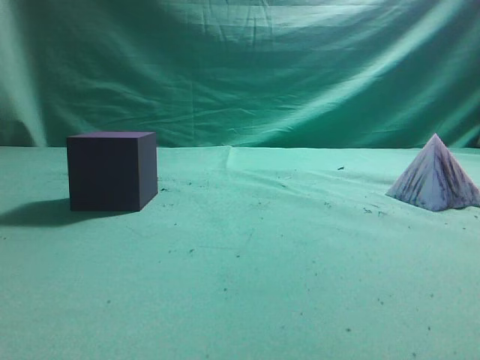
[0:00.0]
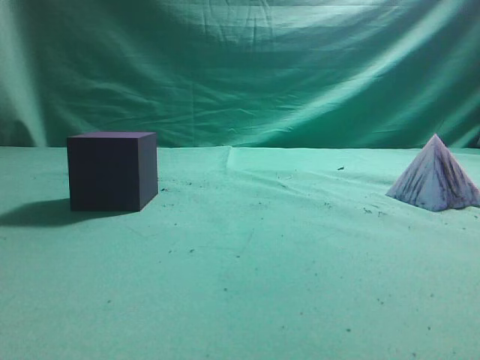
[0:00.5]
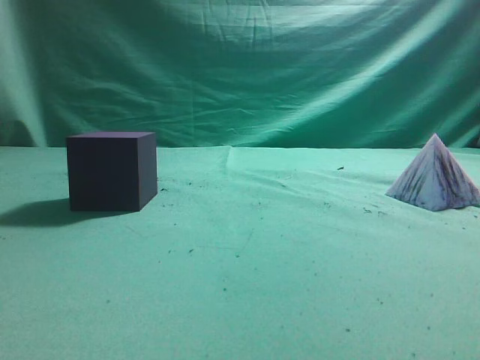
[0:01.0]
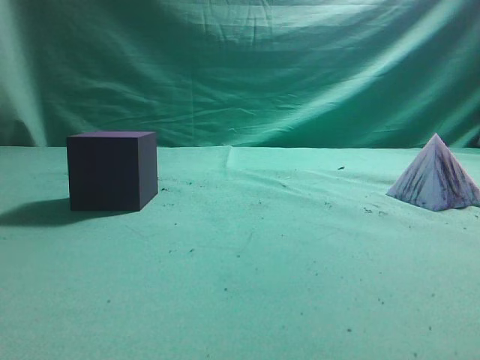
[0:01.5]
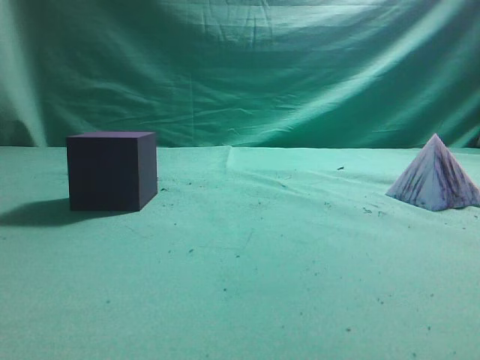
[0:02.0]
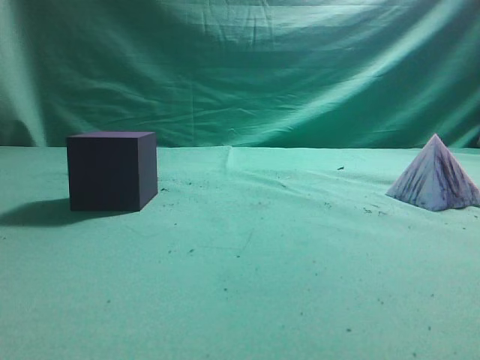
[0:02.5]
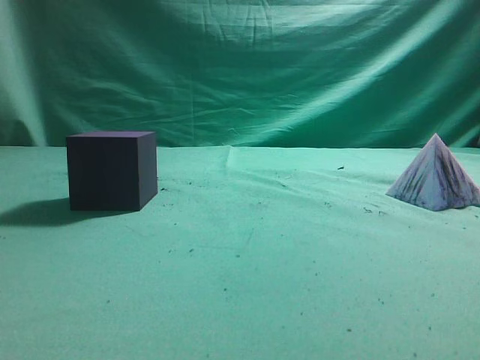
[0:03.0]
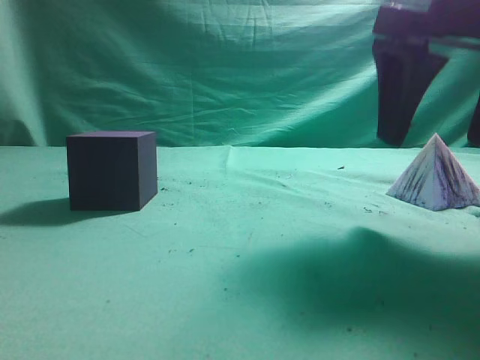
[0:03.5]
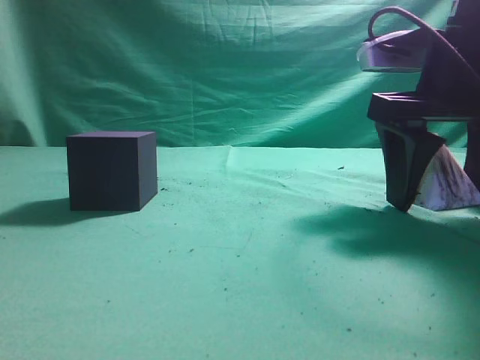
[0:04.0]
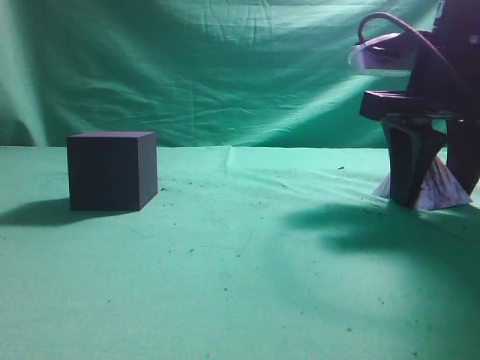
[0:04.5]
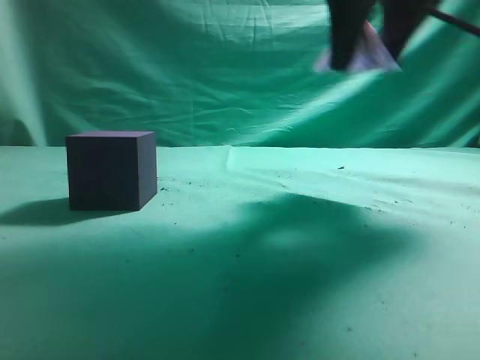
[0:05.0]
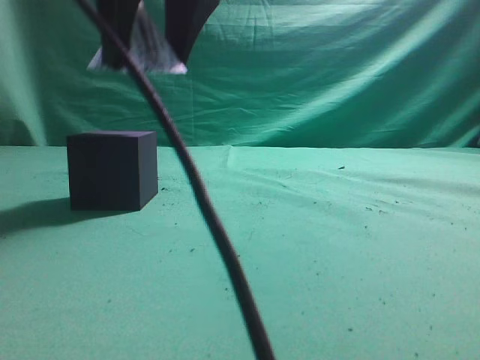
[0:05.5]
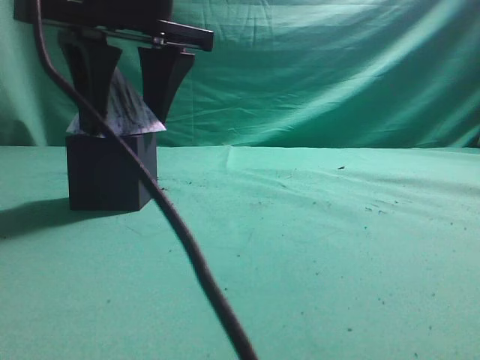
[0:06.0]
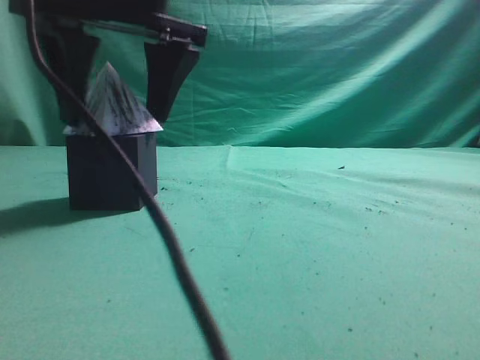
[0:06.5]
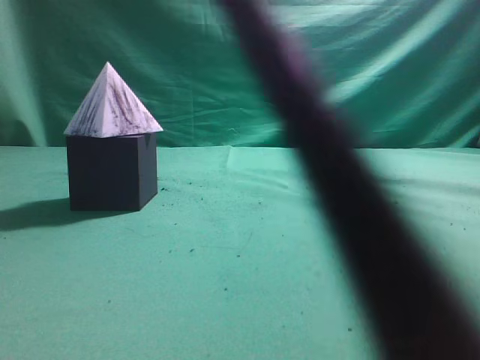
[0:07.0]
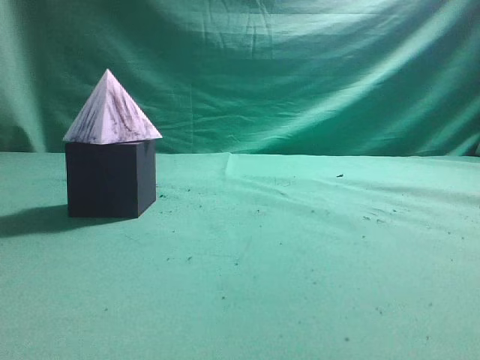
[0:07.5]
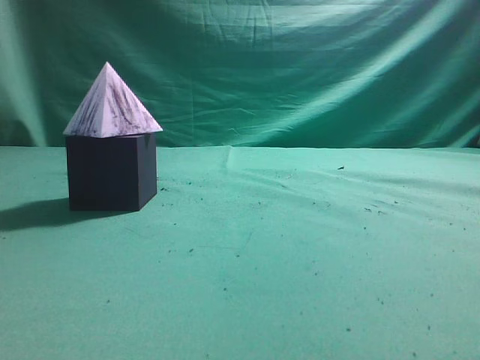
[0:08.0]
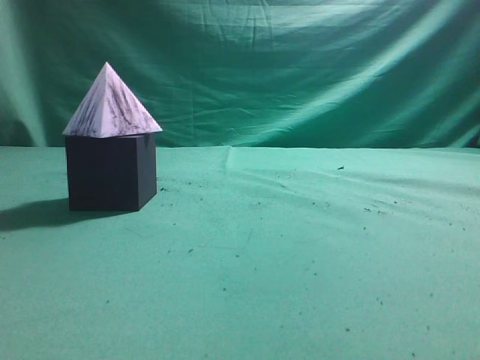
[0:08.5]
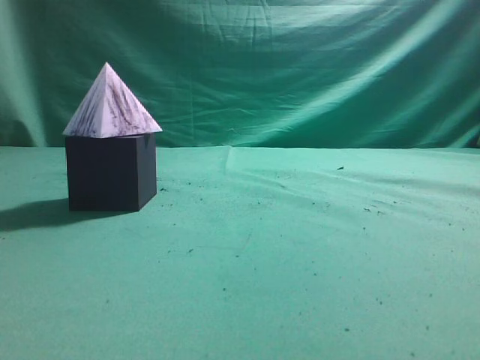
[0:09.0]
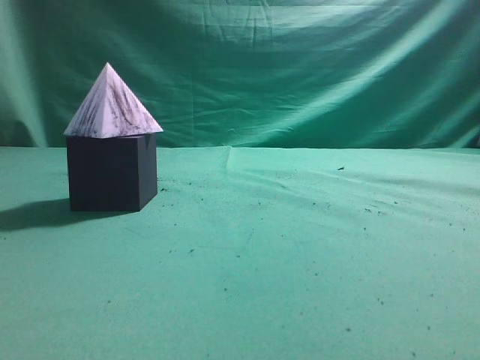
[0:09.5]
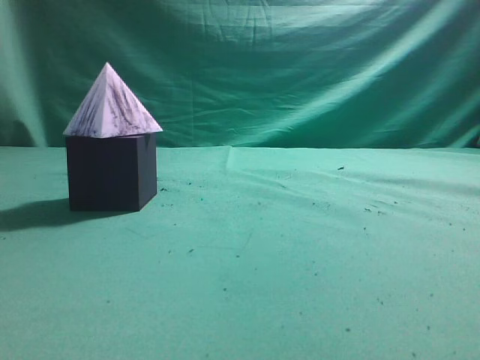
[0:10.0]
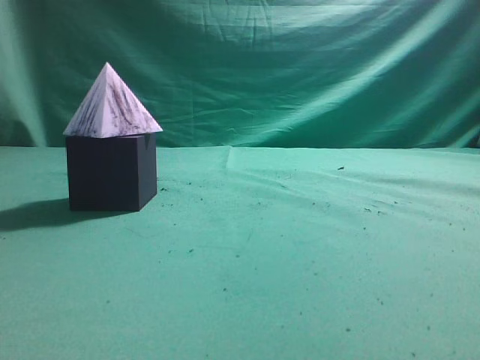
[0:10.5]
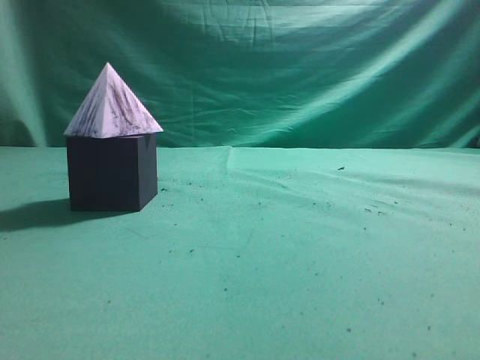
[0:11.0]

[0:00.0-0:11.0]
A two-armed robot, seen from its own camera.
Task of the whole recording: pick up the square pyramid from the table and place it on the cube block.
Step, 0:00.0 to 0:04.5: Grasp the triangular block.
Step, 0:05.0 to 0:06.5: Place the block onto the cube-shaped block.
0:02.0 to 0:03.5: The right gripper shifts approximately 25 cm forward and to the left, and opens up.
0:03.5 to 0:05.5: The right gripper moves to the left, about 20 cm, and closes.
0:05.5 to 0:07.5: The right gripper shifts about 25 cm upward, and closes its fingers.
0:07.5 to 0:09.0: The right gripper goes roughly 35 cm to the right, downward and backward.
